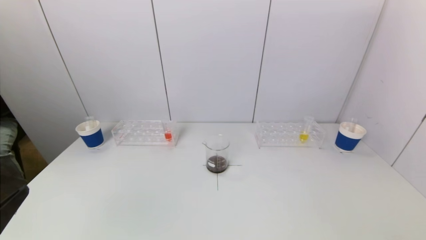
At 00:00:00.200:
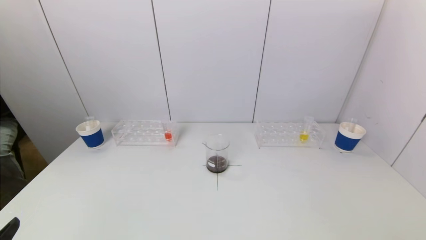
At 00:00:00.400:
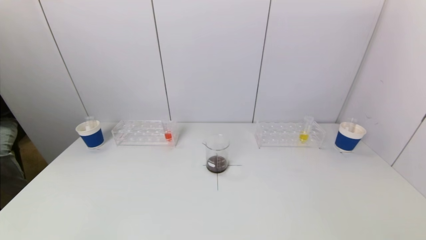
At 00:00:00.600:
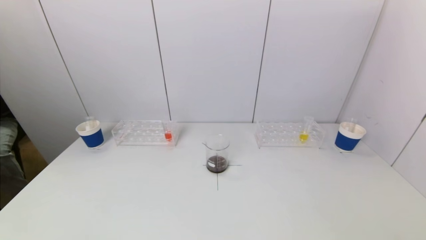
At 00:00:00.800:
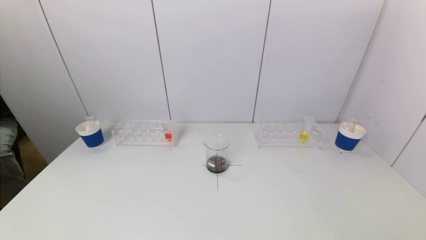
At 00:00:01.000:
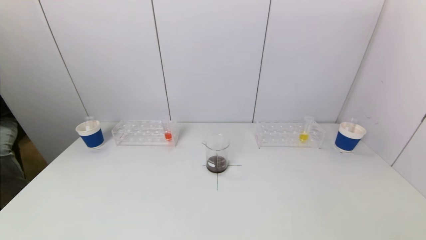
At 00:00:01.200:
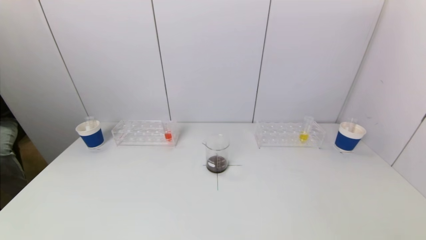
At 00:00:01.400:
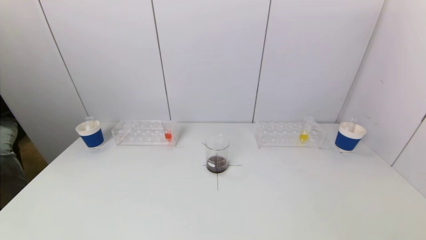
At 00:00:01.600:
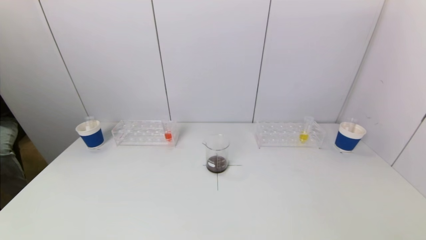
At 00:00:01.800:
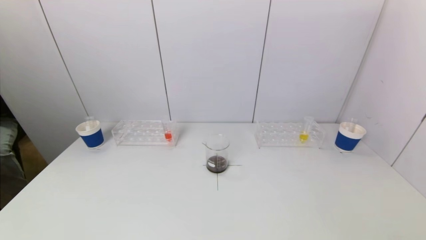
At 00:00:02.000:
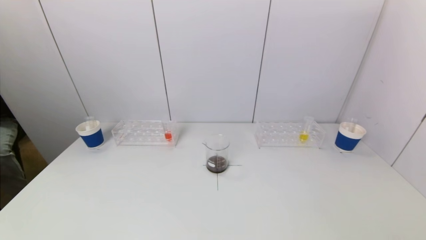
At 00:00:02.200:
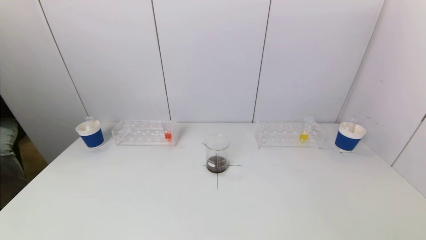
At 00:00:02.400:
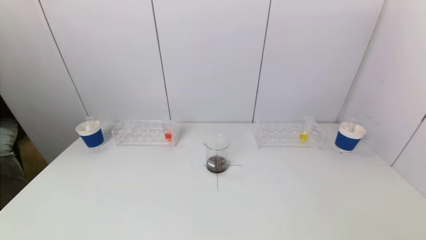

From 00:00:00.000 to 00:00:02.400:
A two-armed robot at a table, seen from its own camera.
Task of the whole recording: pick up a test tube with pigment on left test tube rack and a test tube with pigment on right test tube rack by grippers and pour them into the beaker.
From 00:00:01.200 to 00:00:02.400: Both grippers stay about where they are.
